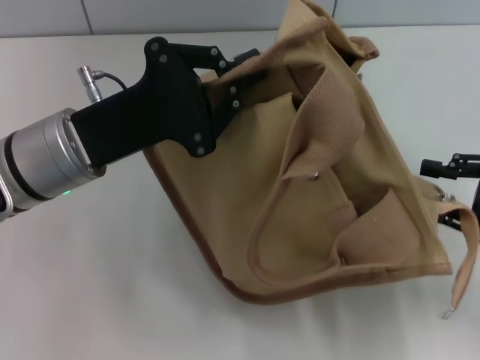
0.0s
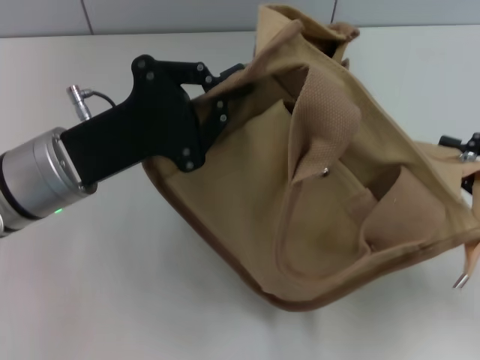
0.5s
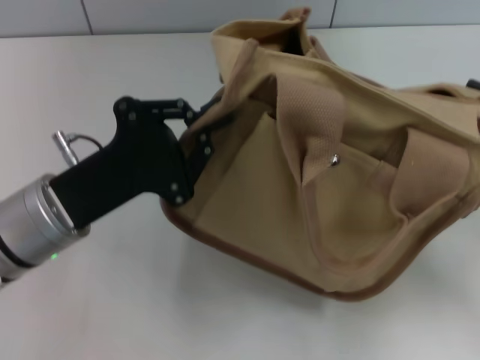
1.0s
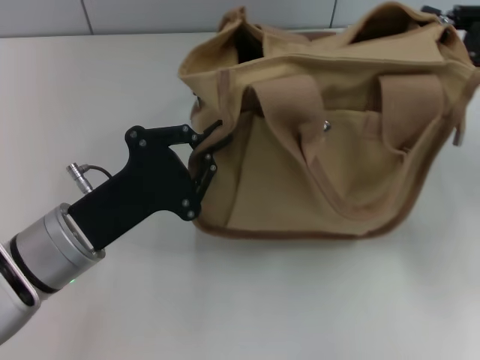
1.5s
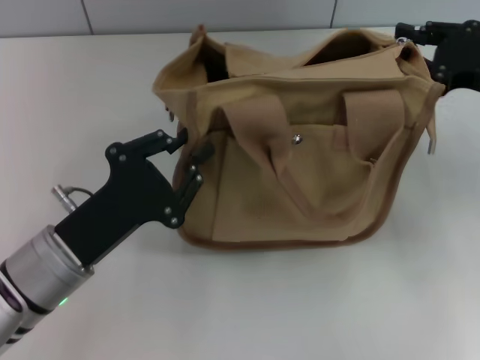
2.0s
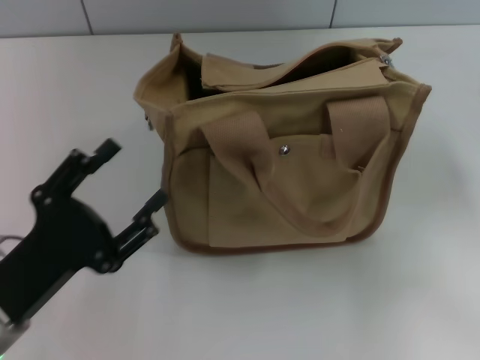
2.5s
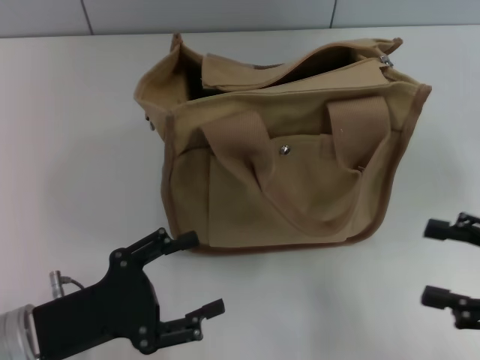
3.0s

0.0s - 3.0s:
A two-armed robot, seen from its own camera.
Step, 0.0s - 2.0s: Grab the bag with your left hand.
0.0s - 1.5s: The left gripper shifts approximately 10 cm backward and downward. Meanwhile the right gripper is displaced forward and upward by some 10 cm, and closes its fingers.
1.5s - 3.0s: The right gripper moves backward and downward, roughly 15 cm, and opens its fingers, while the left gripper heads backward, covering roughly 5 cm, and opens its fingers.

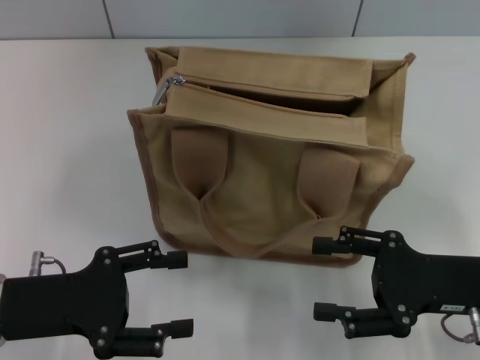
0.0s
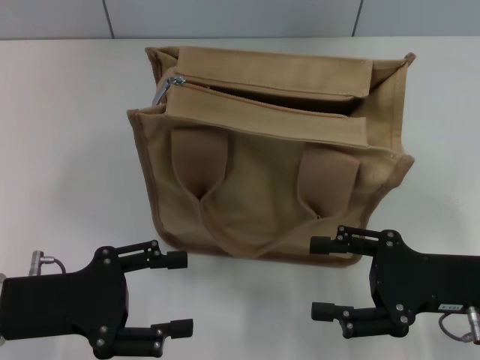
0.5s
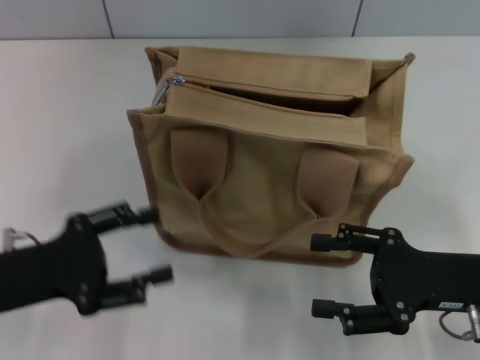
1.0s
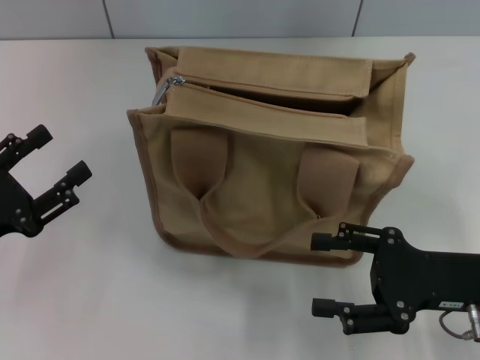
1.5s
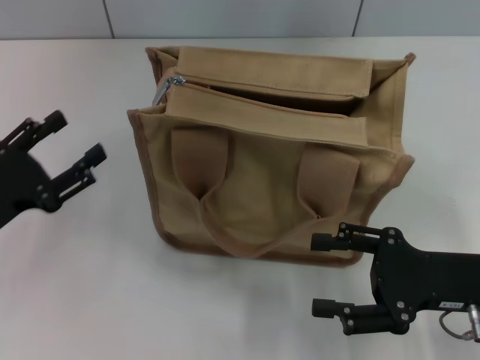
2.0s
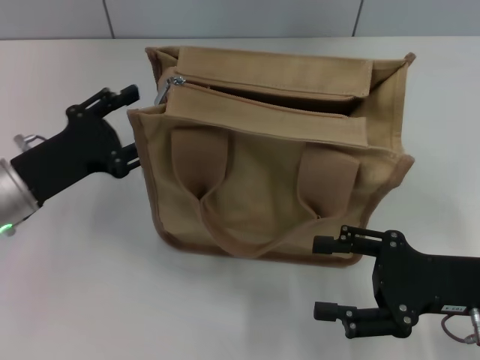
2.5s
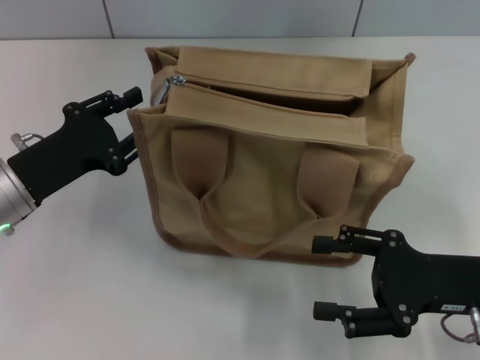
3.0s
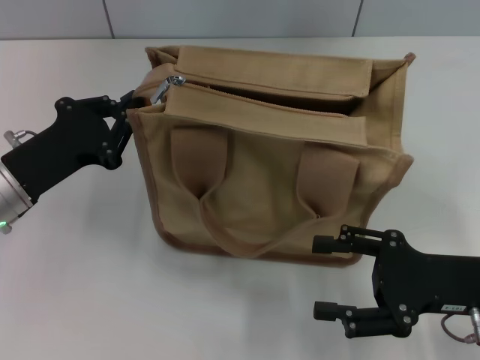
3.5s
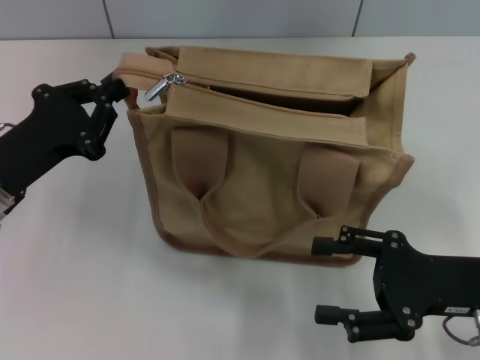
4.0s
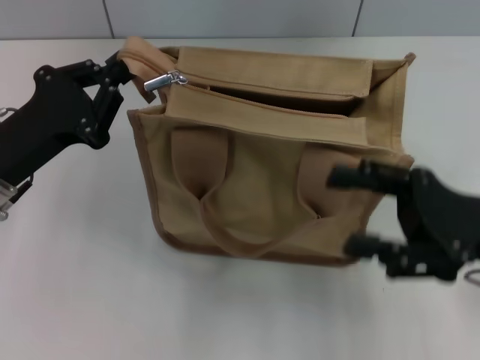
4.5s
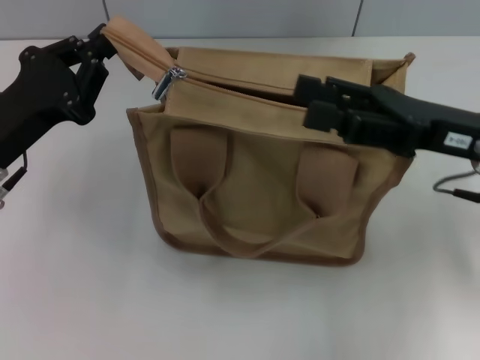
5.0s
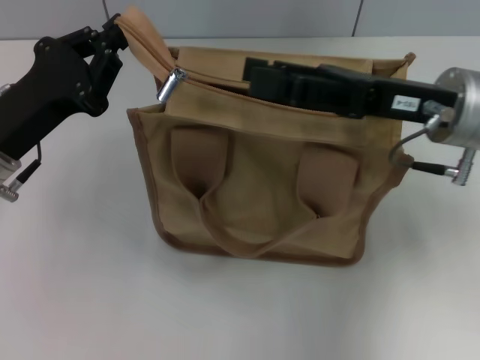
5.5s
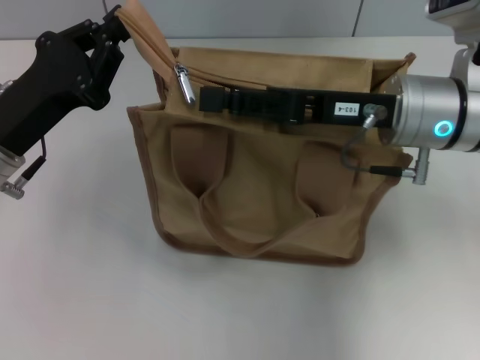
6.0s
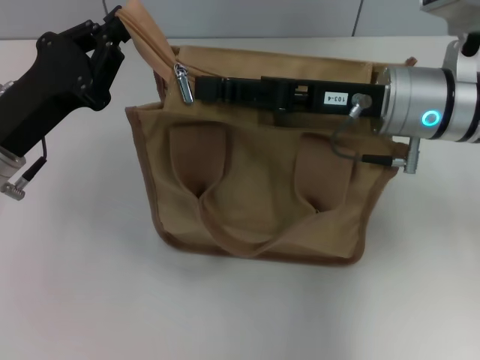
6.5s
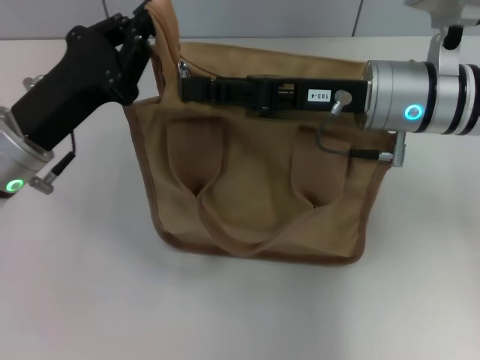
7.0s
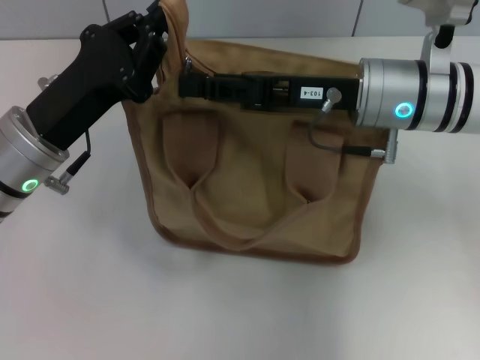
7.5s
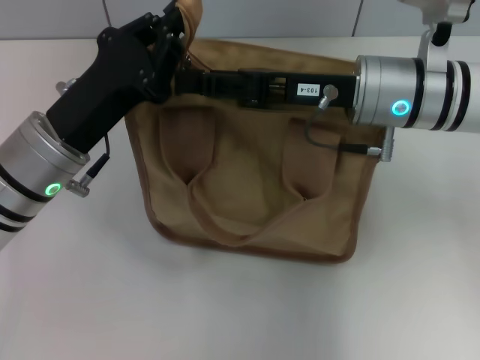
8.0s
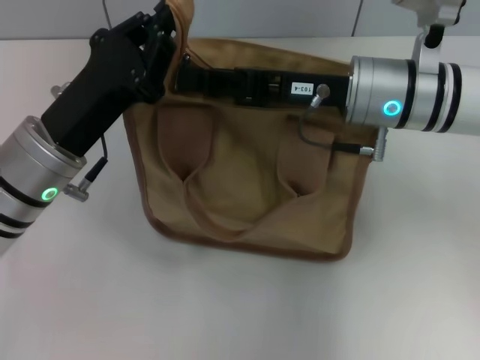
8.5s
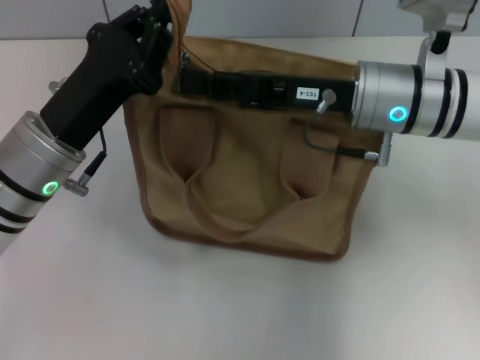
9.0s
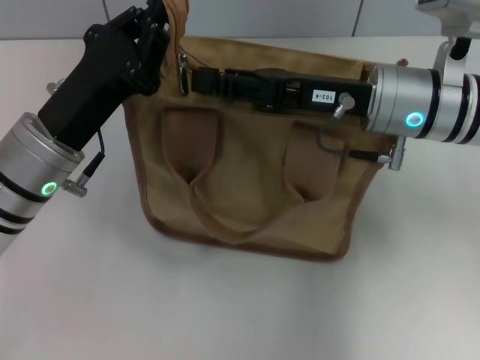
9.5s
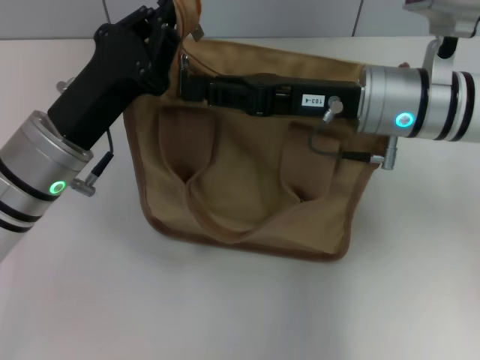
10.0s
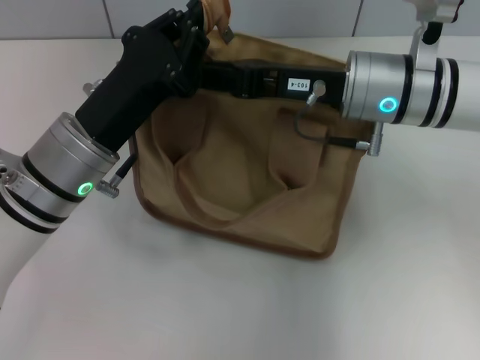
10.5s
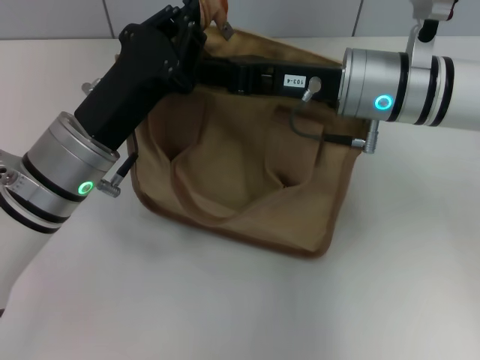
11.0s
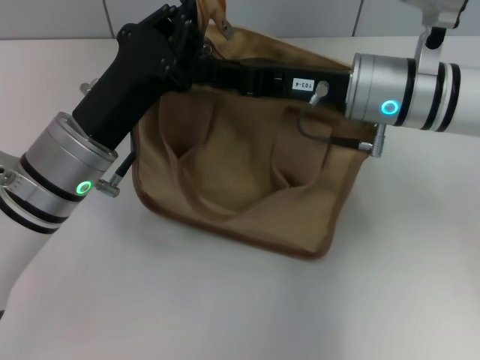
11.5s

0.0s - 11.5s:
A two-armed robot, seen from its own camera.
2.0s - 4.0s: The left gripper ends up roughly 5 cm from where it was, and closes.
4.0s - 6.0s: The right gripper shifts some 15 cm forward, to the left and upward.
7.5s - 9.5s: The grippers stay close to where they were, moving slightly.

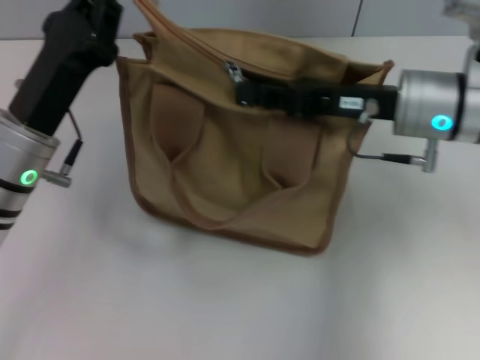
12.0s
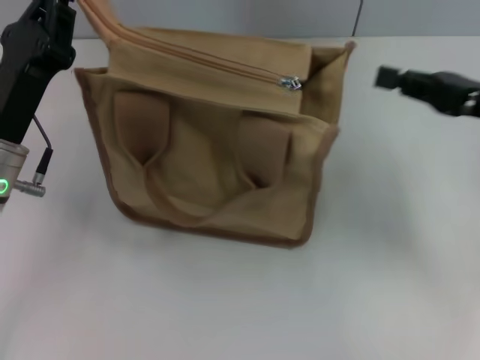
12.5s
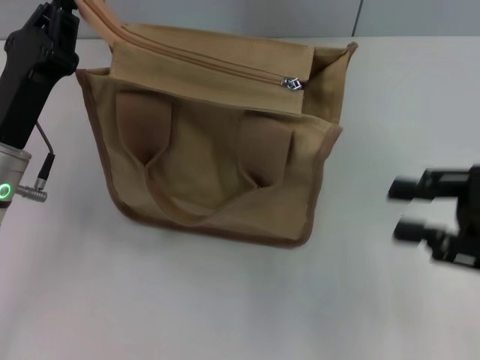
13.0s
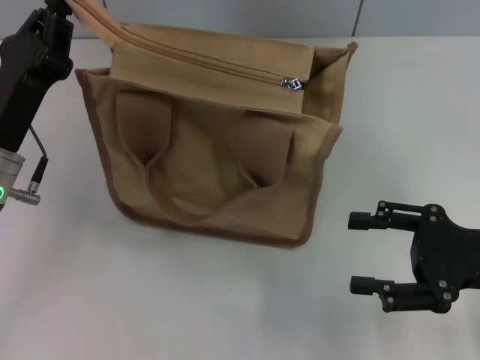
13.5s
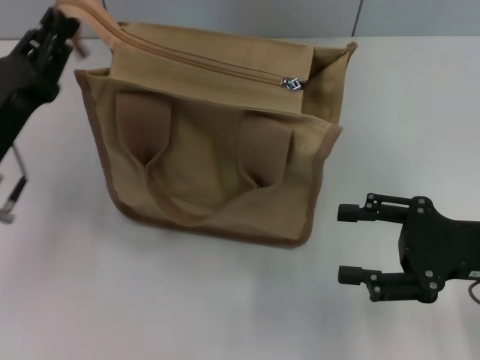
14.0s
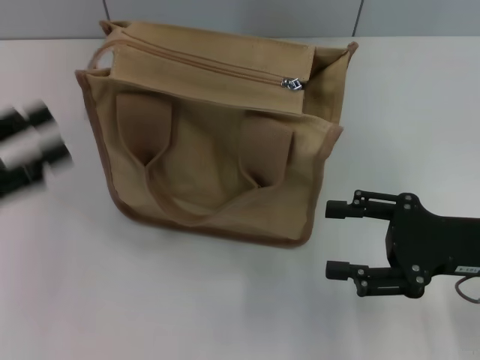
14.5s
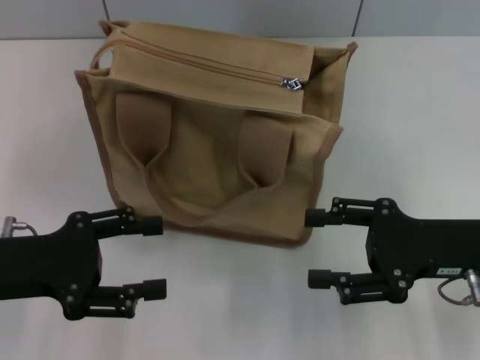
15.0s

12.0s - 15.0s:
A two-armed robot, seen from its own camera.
Step, 12.5s - 14.0s: Grab the zipper with your left hand.
12.0s - 13.5s: The right gripper shifts approximately 15 cm backward and to the right, and opens up.
13.5s - 15.0s: The left gripper is displaced backward by approximately 5 cm, and opens.

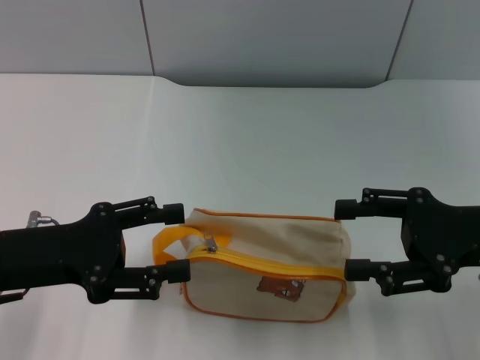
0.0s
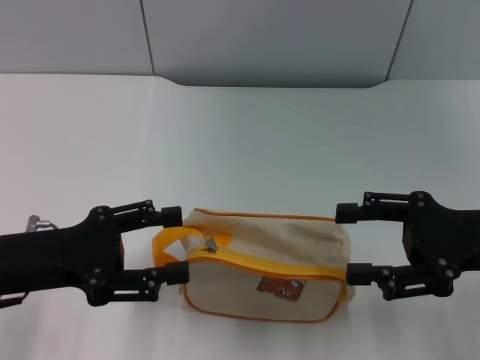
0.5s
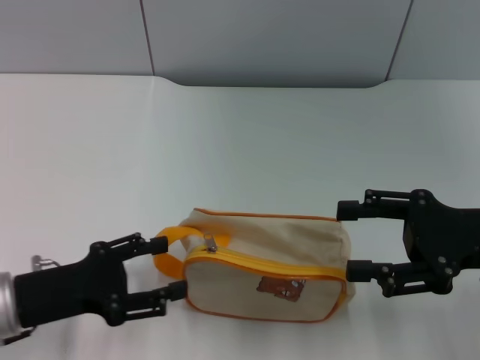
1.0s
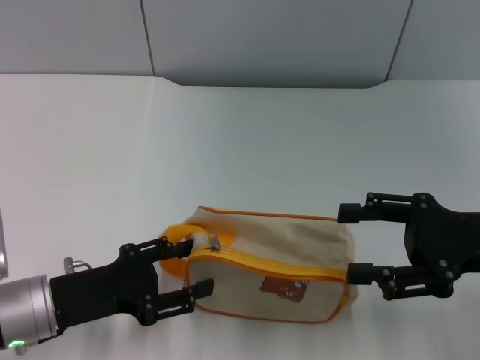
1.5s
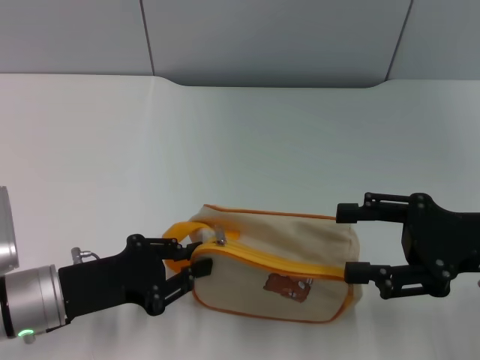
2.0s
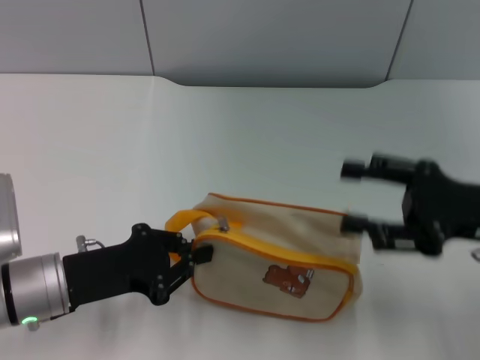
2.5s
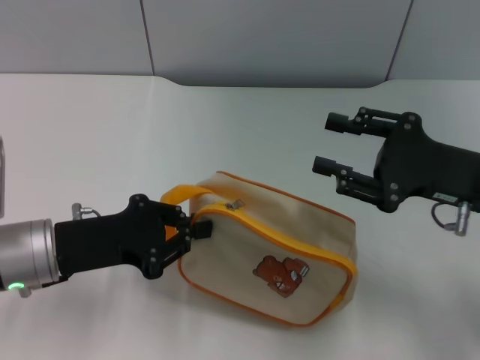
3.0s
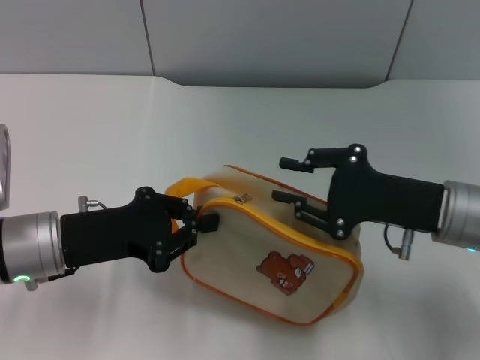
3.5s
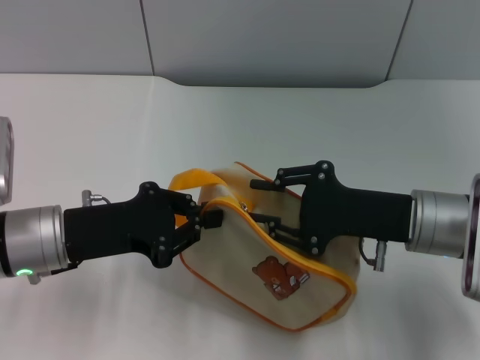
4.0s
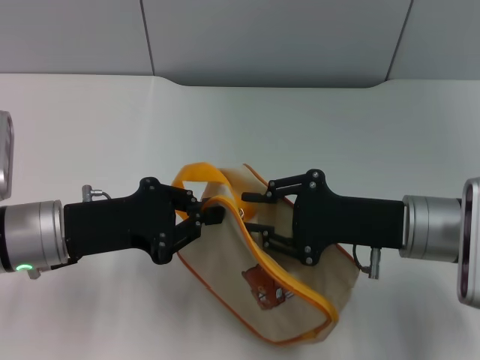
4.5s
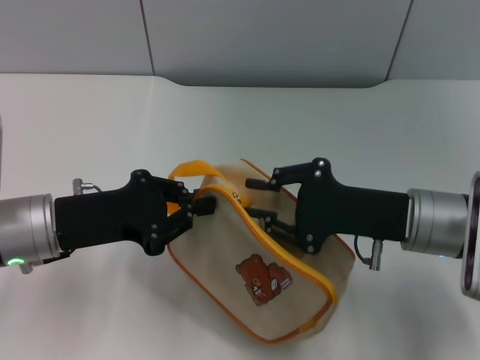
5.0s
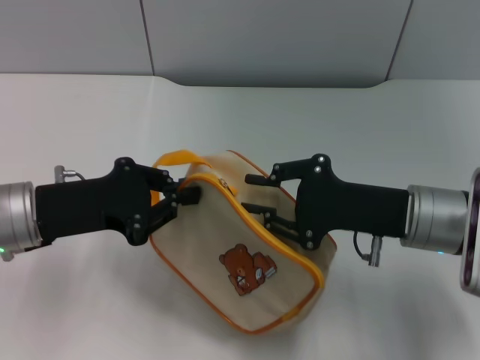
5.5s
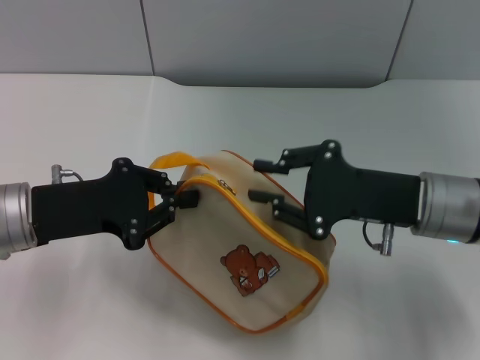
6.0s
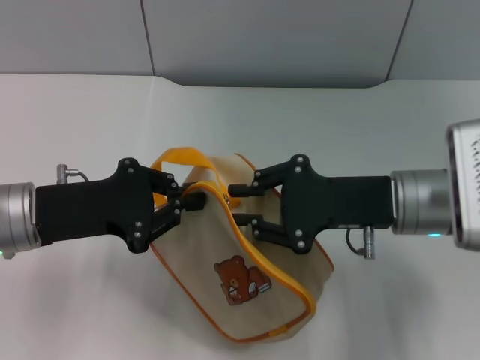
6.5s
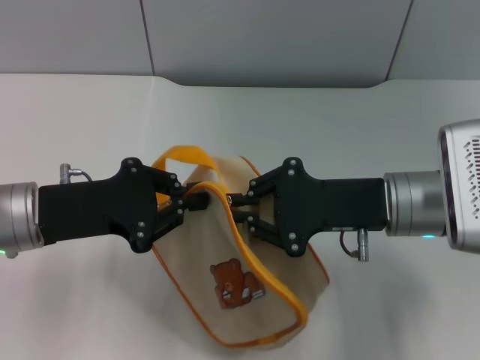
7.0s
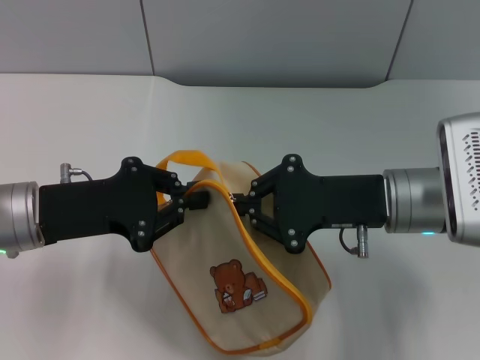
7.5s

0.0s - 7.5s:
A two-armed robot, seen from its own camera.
Step, 0.0s - 3.5s: Pick up the bag with left gripper.
0.0s - 2.0s: The left gripper travels downward by approximately 5 cm, and closes up.
2.0s - 4.0s: The left gripper ends up about 5 cm from where it was, and closes. The right gripper goes roughly 10 cm to the left, and closes.
4.0s - 7.5s: The grippers stay close to where they were, moving slightly.
